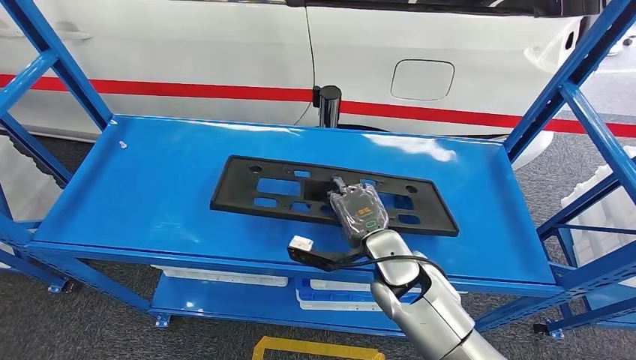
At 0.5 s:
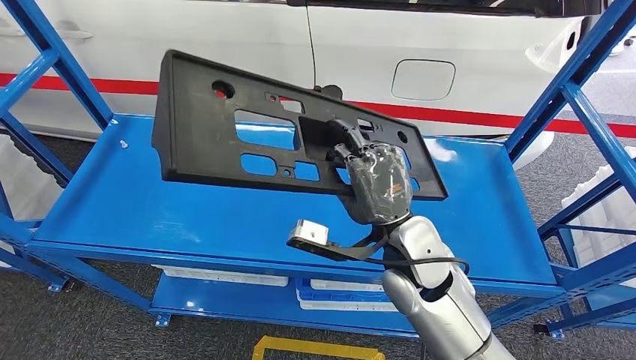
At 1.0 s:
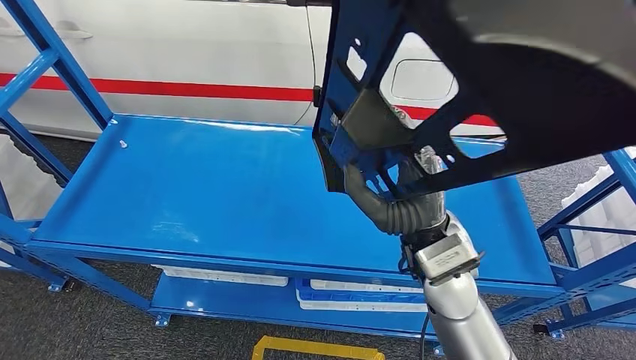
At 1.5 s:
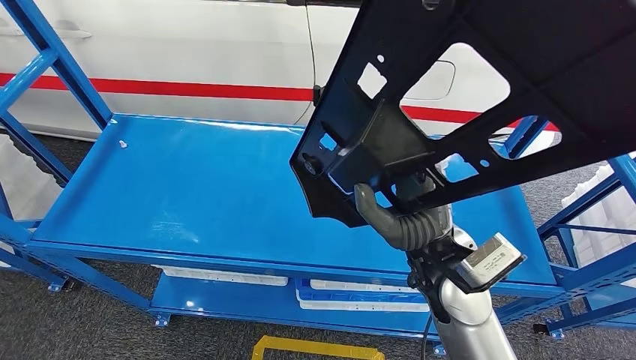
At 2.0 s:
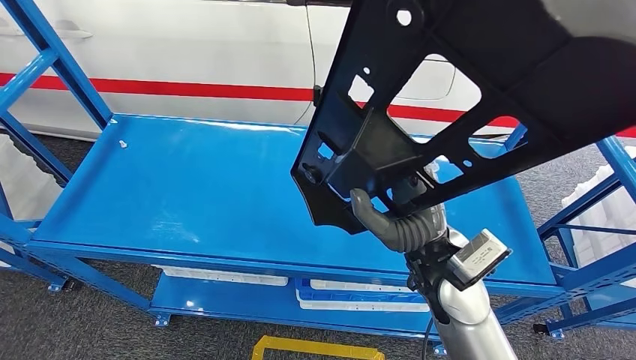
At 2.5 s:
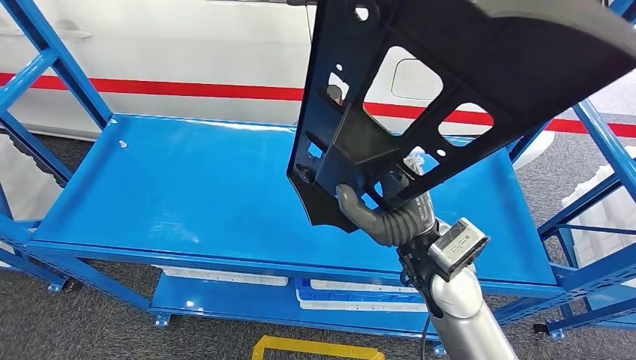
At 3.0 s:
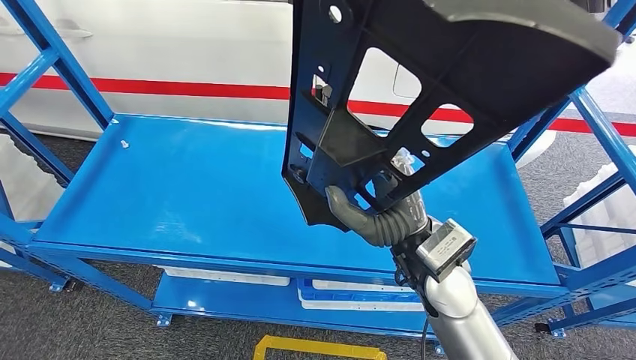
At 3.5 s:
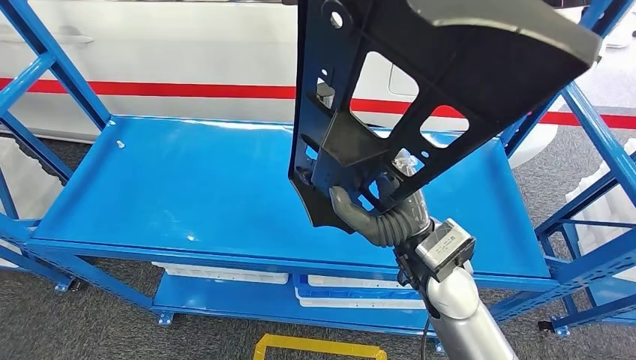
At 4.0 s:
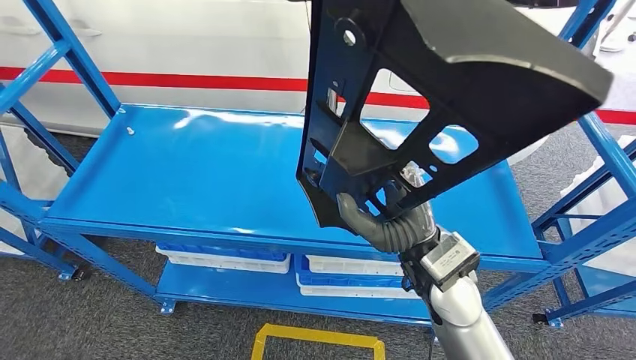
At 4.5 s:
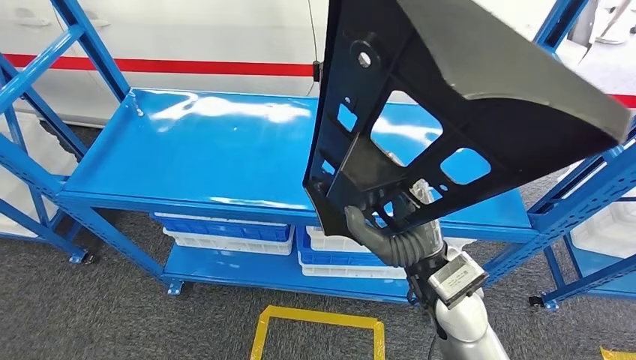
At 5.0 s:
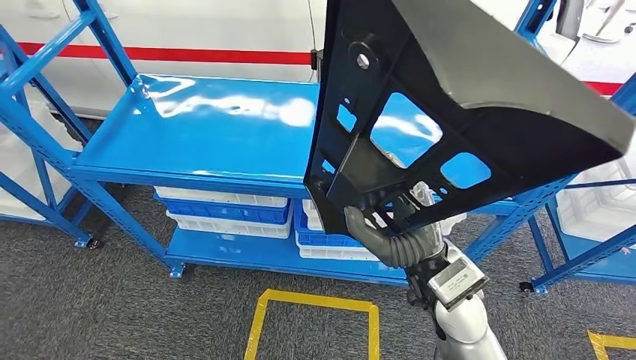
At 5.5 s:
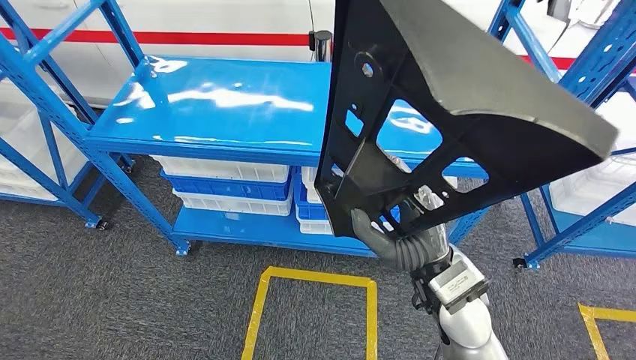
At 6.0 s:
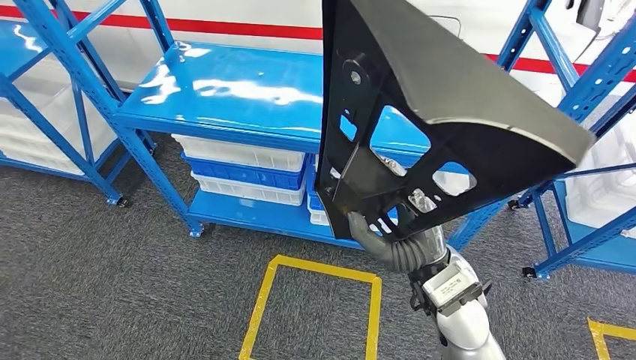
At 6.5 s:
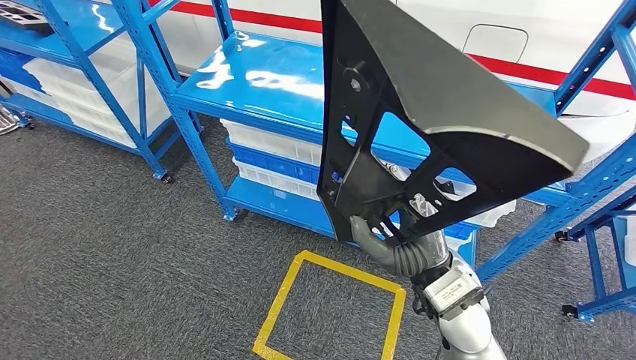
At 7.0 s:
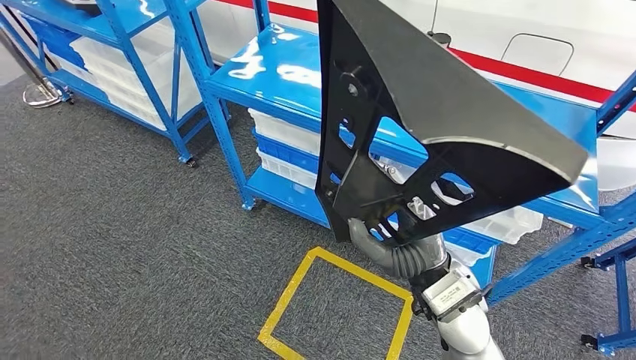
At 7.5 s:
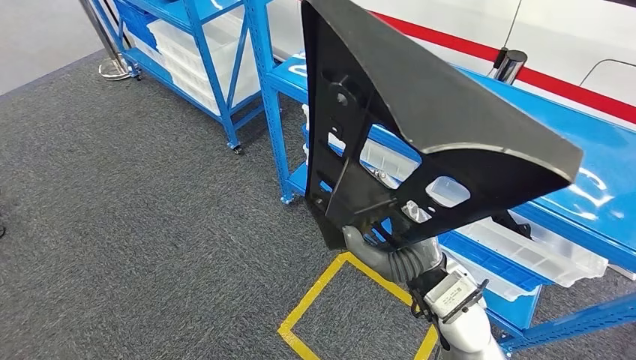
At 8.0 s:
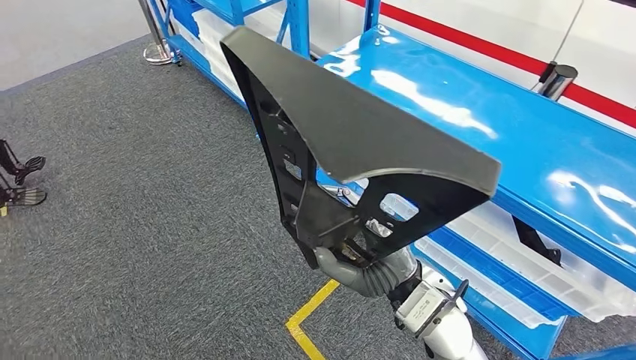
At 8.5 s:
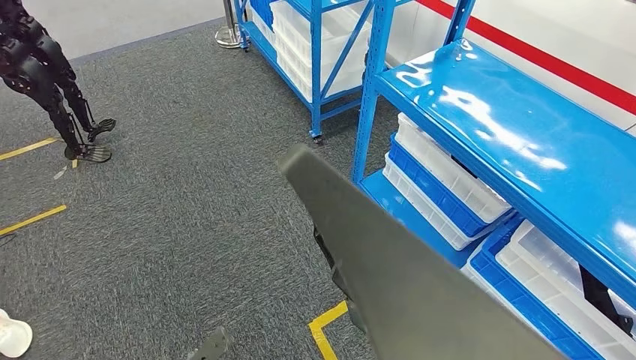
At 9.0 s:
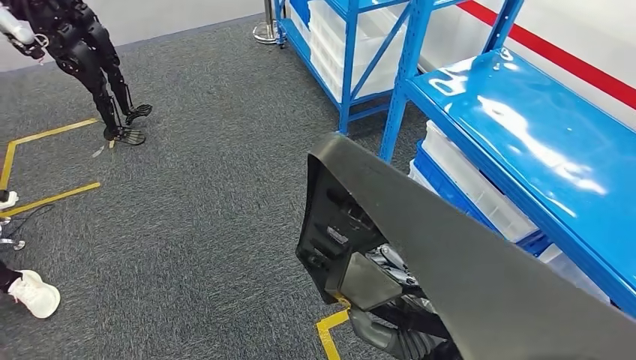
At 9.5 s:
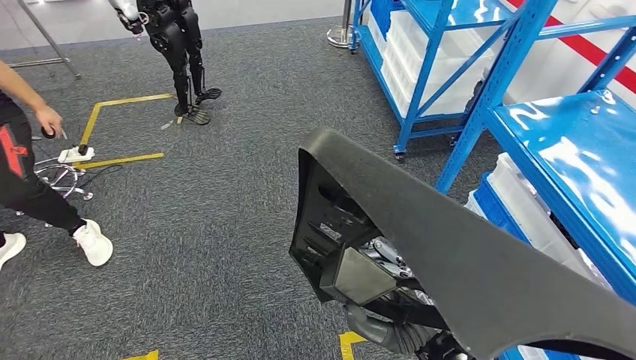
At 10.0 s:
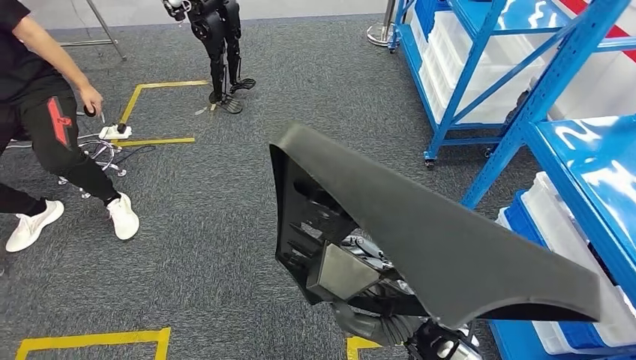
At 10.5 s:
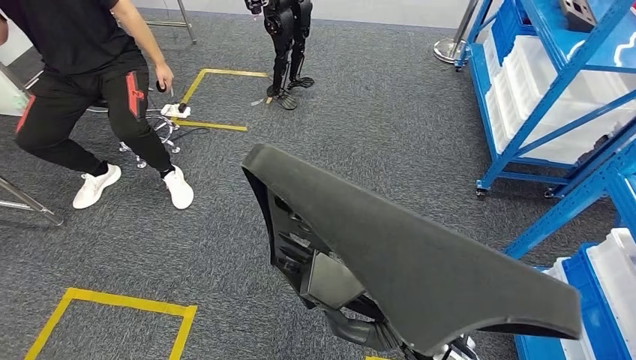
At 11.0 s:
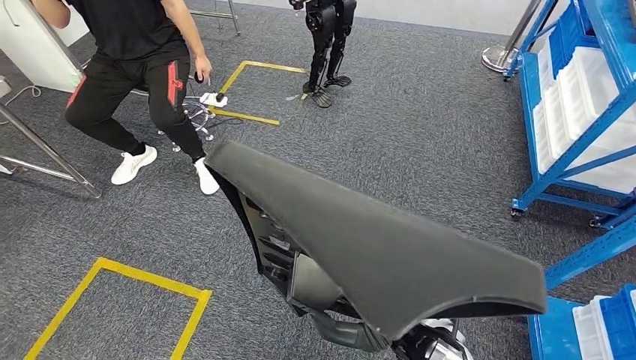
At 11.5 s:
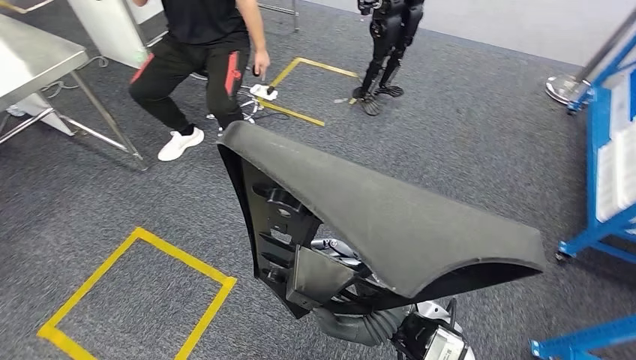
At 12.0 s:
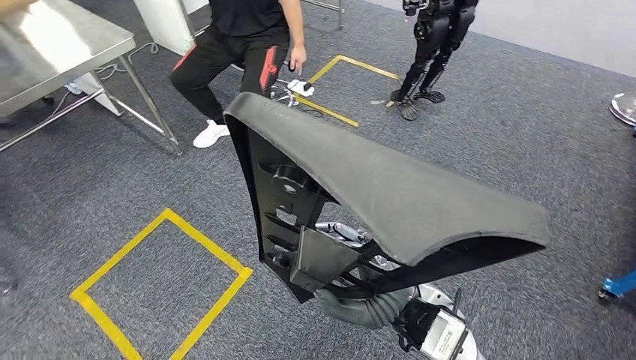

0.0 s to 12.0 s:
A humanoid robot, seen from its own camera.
Step, 0.0 to 2.5 s: Pick up the large material from the shelf.

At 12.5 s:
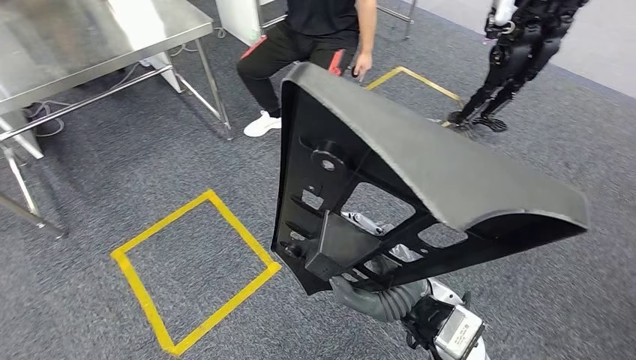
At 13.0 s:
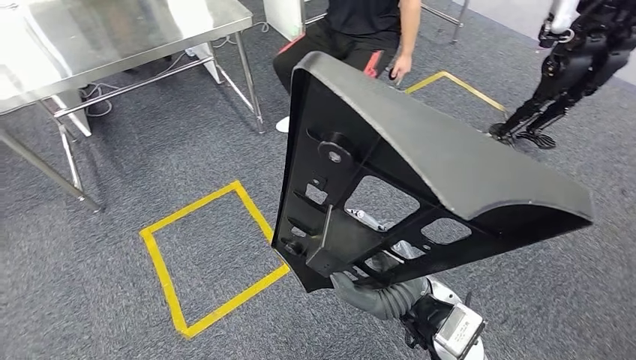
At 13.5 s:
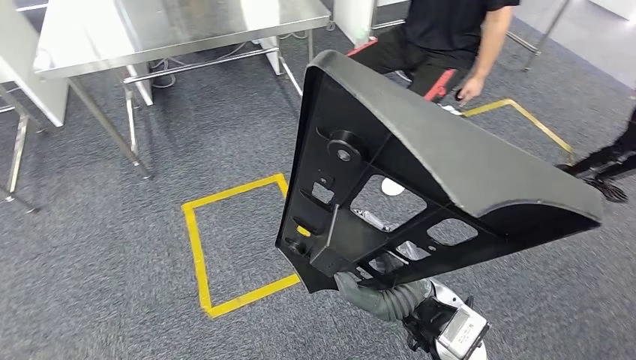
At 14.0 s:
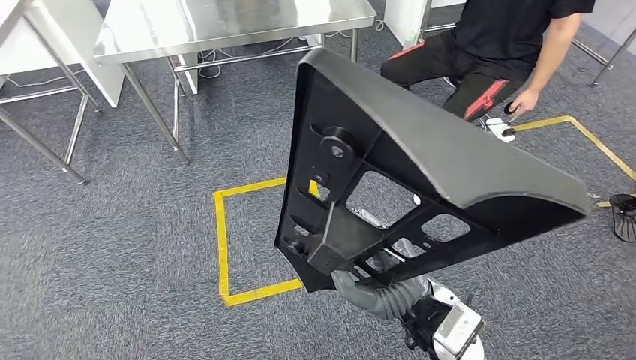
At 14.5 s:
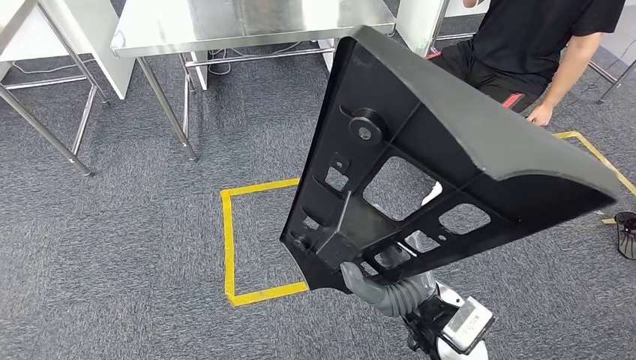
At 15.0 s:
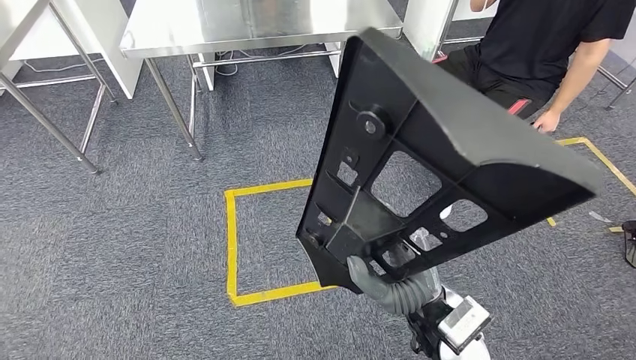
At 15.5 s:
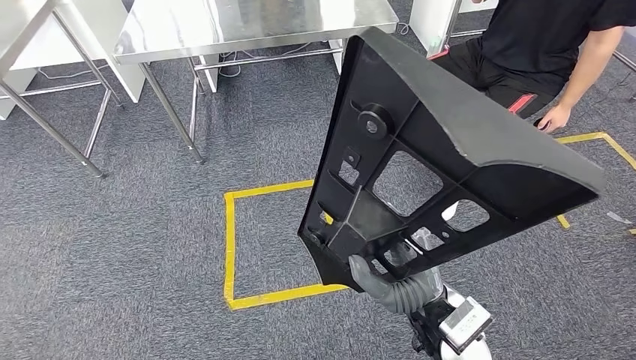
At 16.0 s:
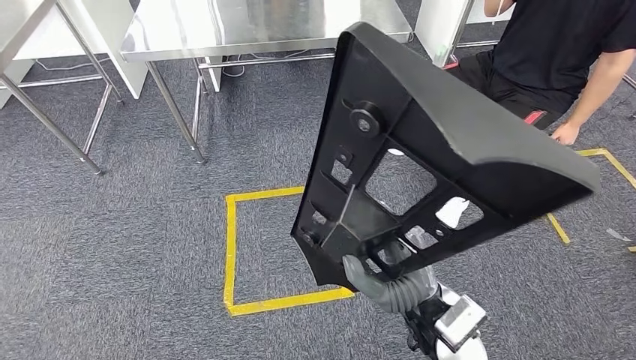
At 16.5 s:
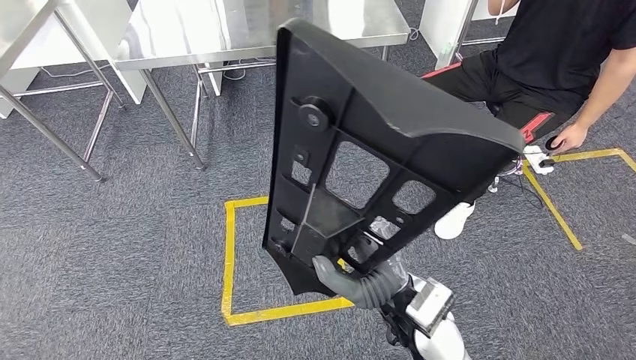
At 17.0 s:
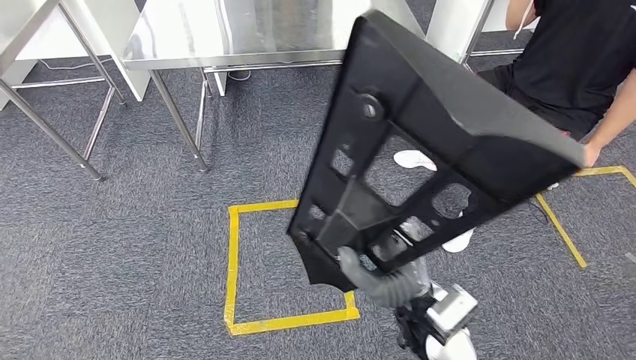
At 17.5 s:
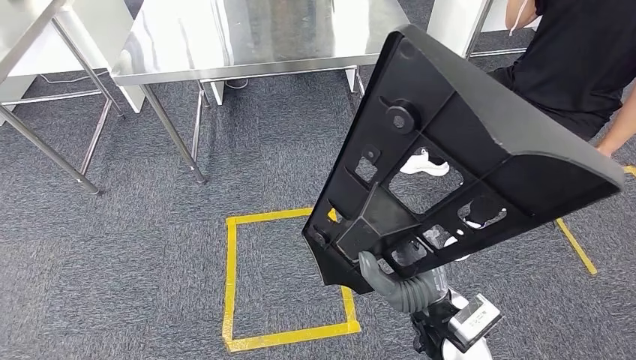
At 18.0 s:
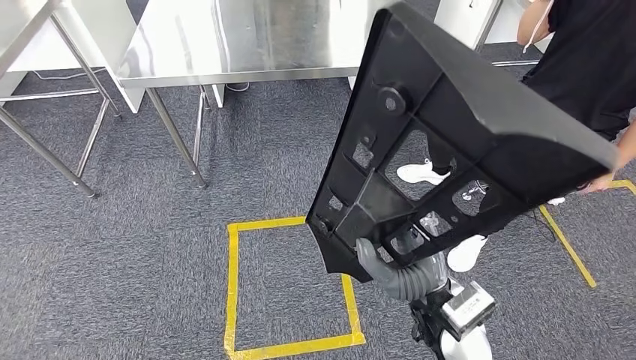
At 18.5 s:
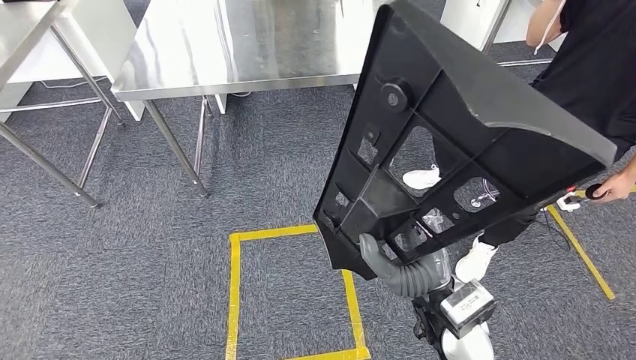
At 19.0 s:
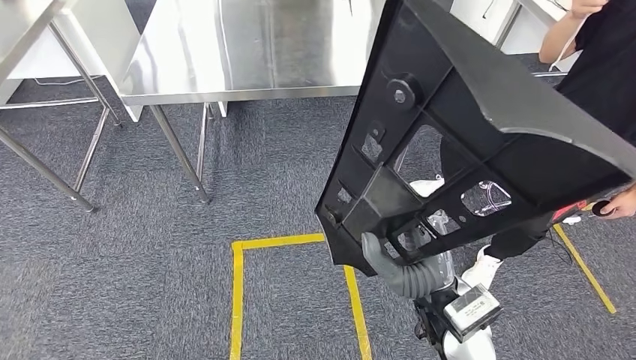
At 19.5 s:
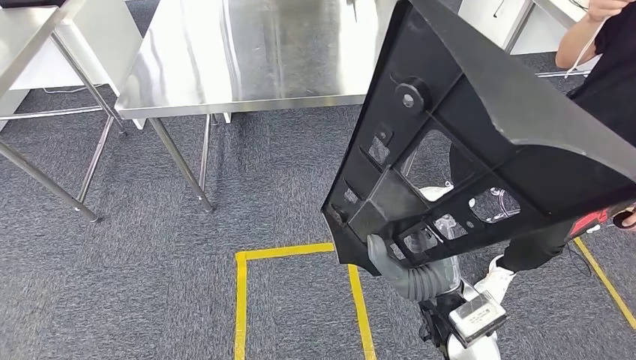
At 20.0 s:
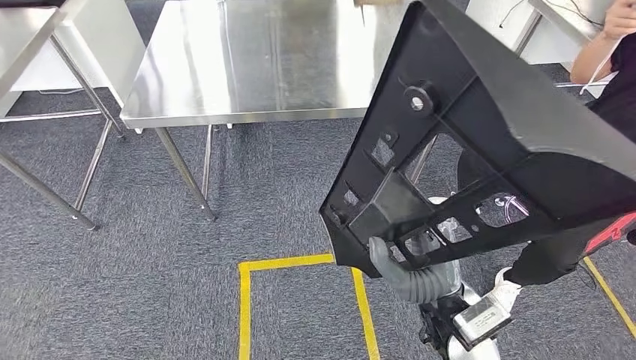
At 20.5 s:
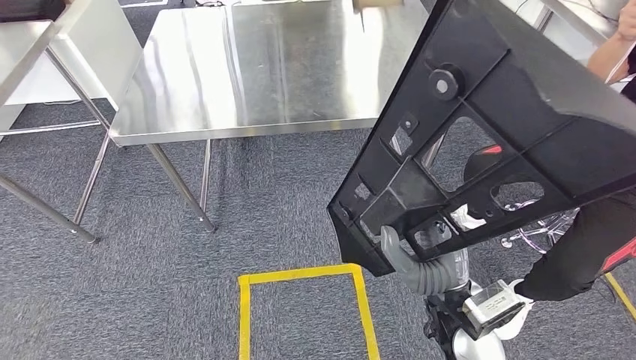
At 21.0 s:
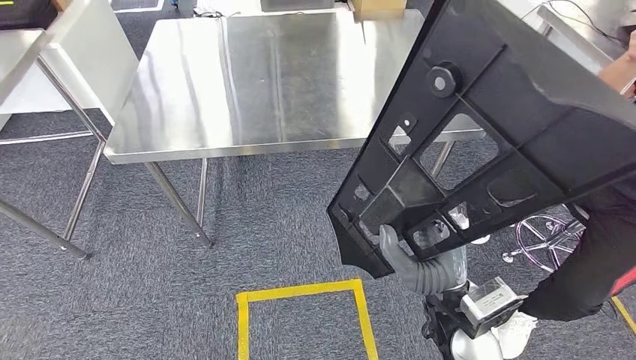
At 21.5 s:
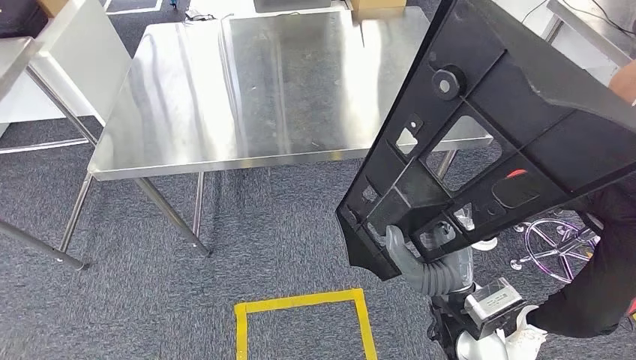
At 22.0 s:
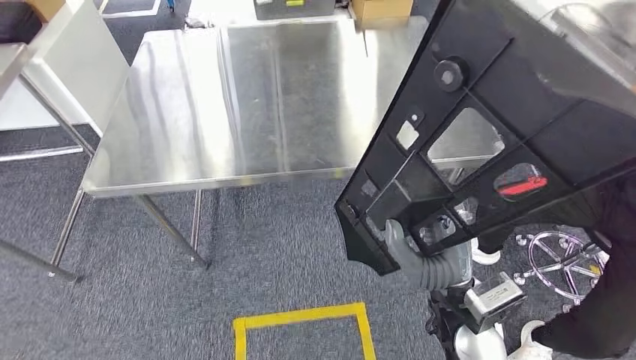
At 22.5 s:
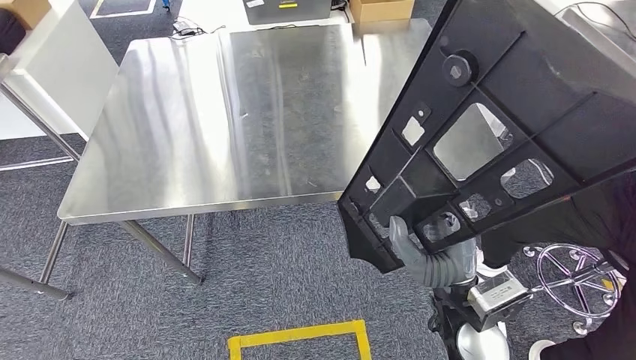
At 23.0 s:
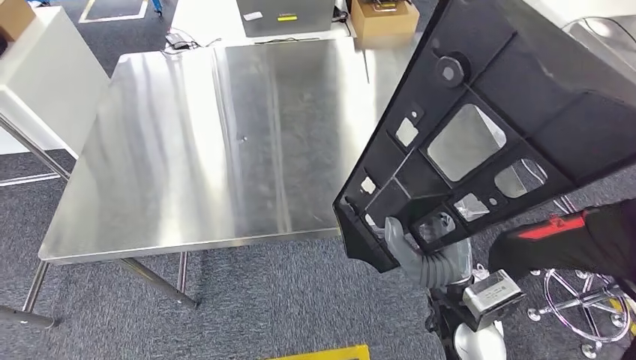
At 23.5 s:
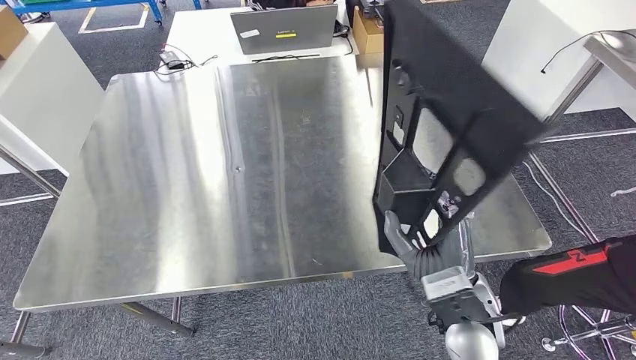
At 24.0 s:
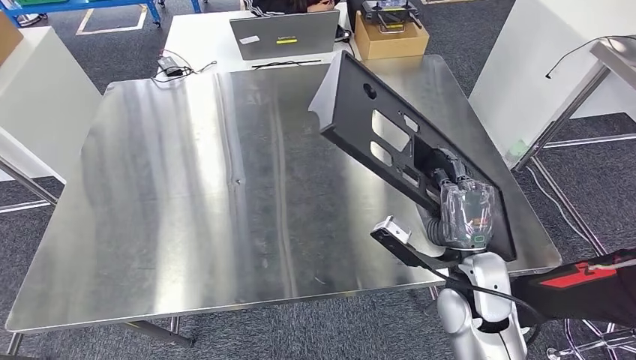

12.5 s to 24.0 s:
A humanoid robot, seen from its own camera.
Step, 12.5 to 22.5 s: Move the large material to the workbench.
